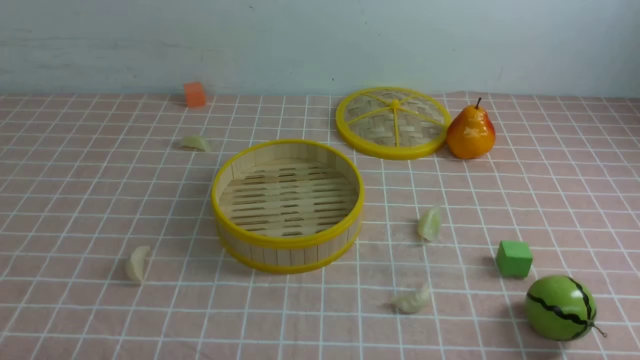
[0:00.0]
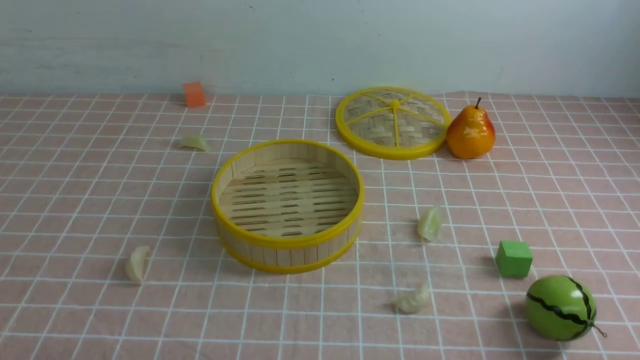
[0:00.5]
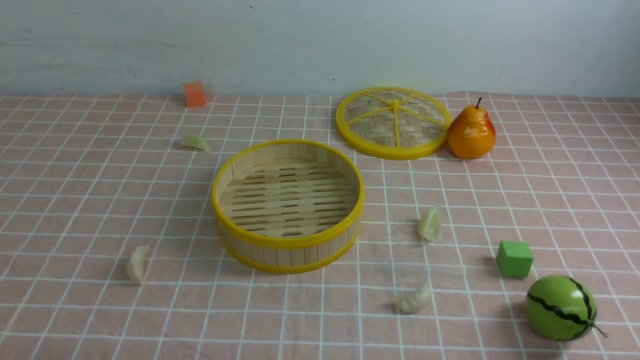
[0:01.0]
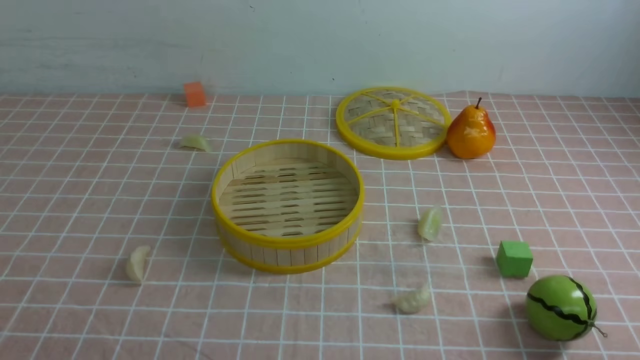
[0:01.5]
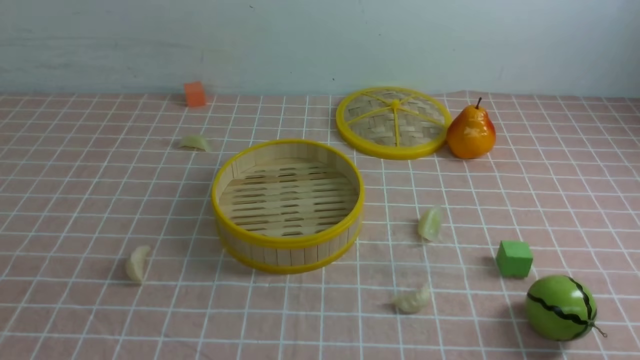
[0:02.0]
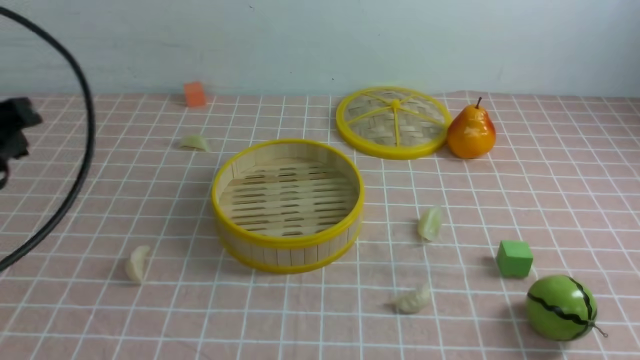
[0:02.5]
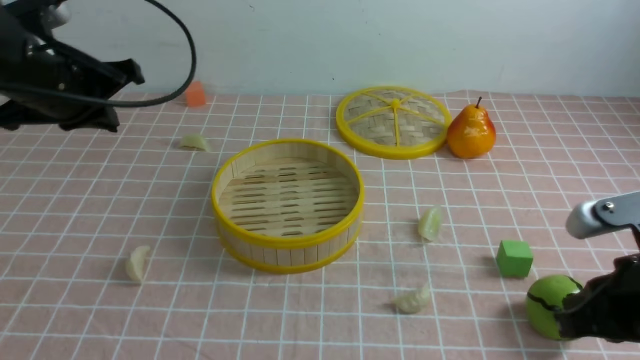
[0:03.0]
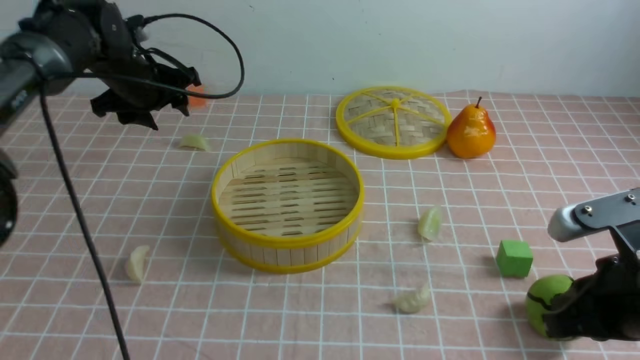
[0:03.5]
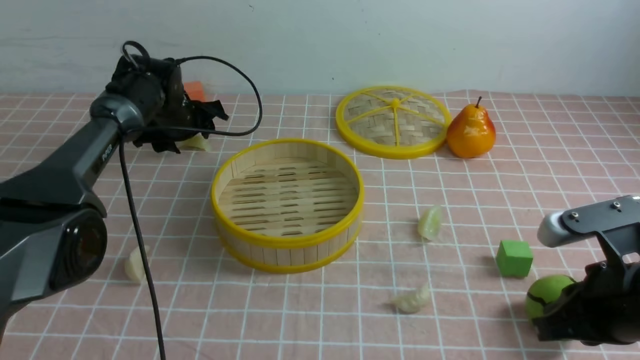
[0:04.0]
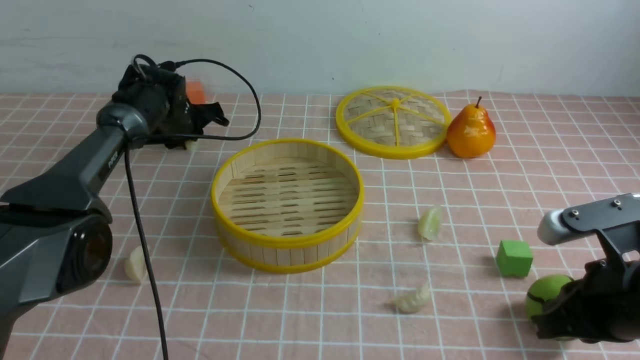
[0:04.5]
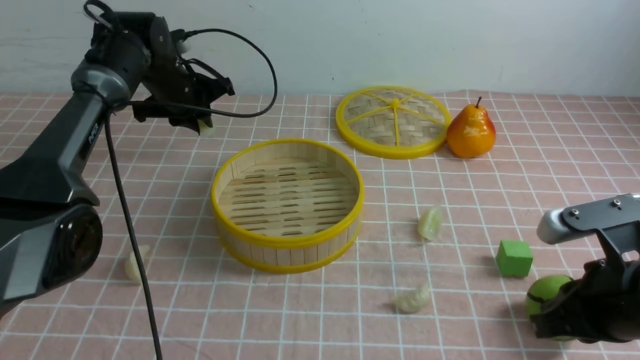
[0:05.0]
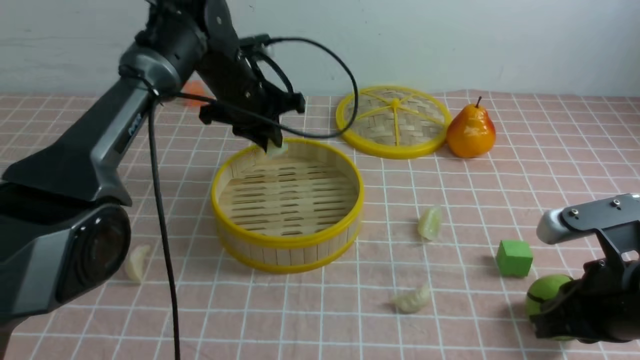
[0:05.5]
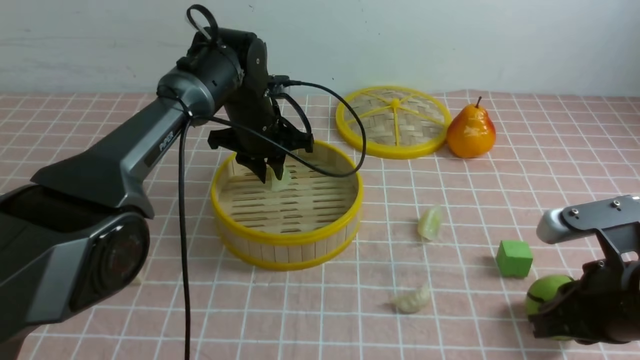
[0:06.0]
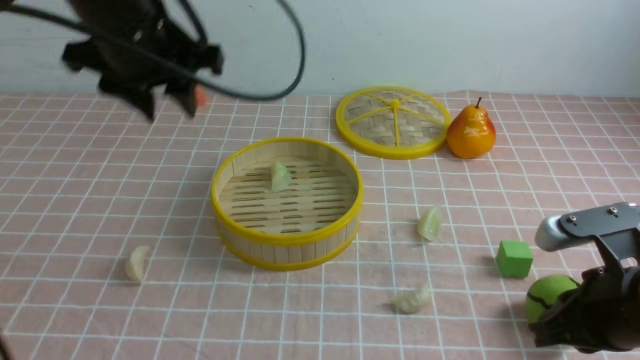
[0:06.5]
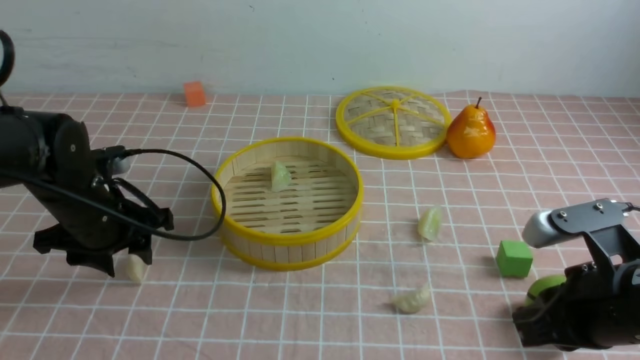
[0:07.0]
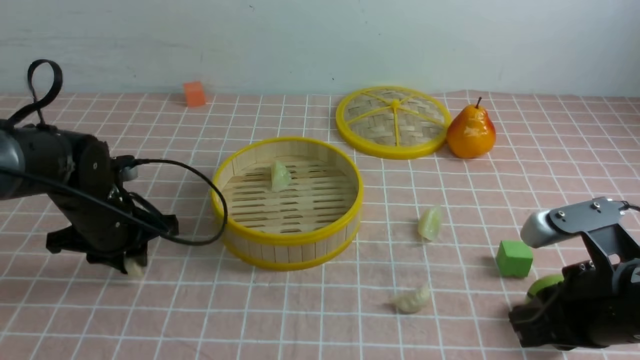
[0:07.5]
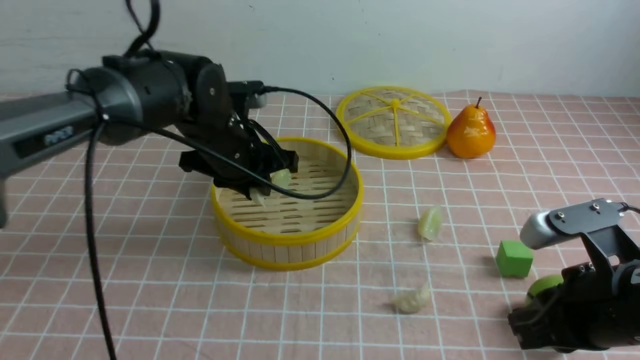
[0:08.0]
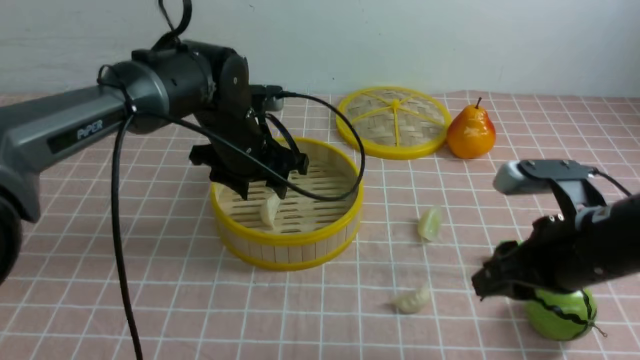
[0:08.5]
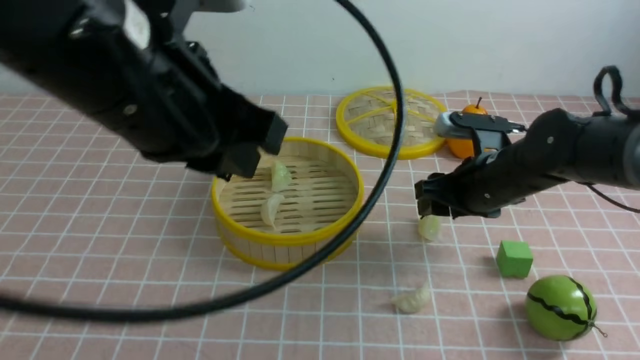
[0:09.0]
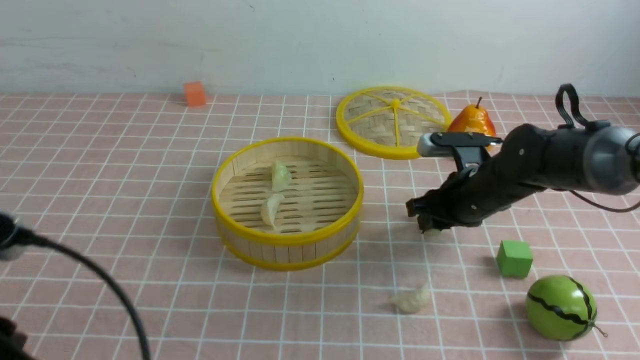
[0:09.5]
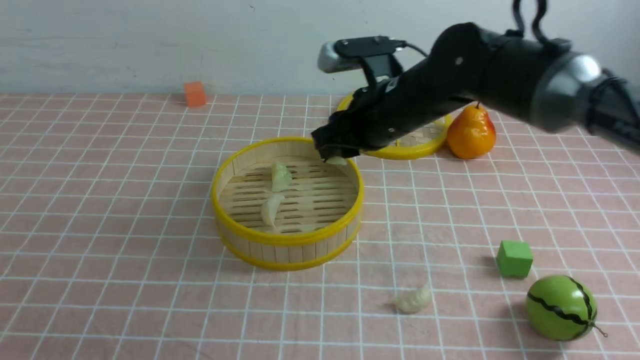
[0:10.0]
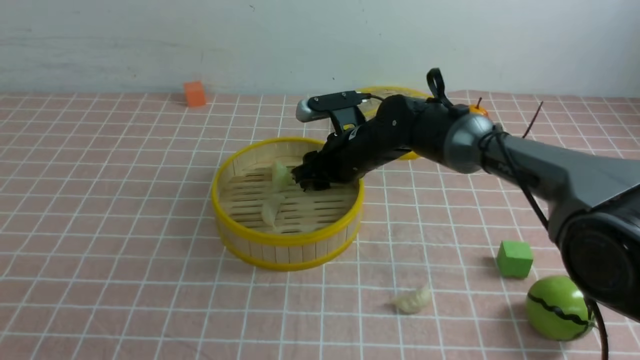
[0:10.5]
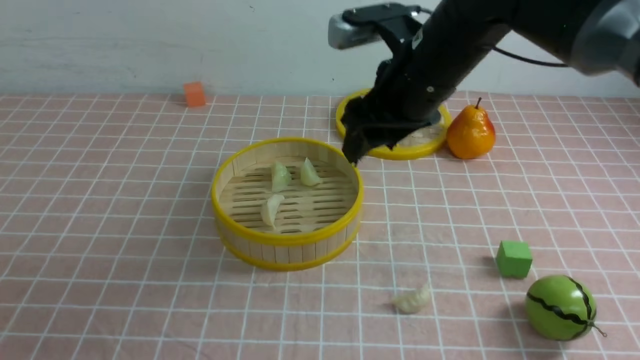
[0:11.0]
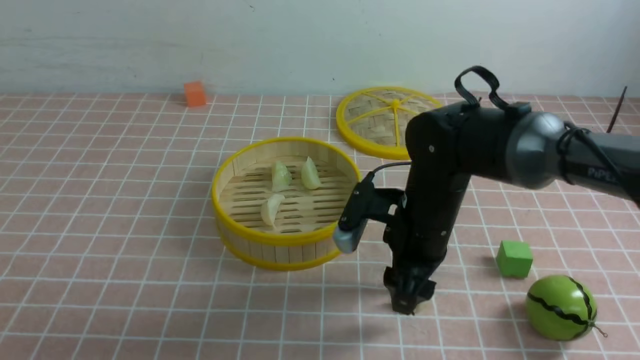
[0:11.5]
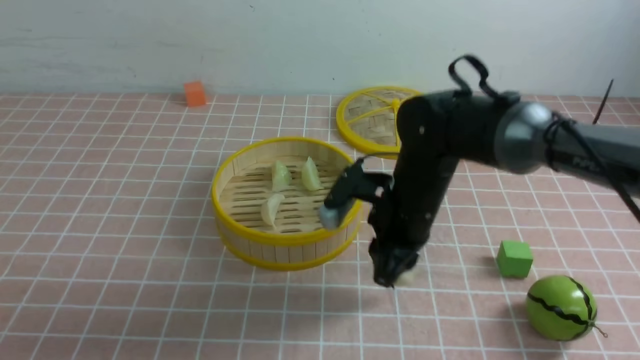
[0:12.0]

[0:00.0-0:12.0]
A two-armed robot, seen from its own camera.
Task of the whole recording: put the dumplings into the steamer on the table with the pink tablecloth.
Step, 0:00.0 to 0:04.5: use the left arm to grab a dumpling.
Step, 0:05.0 to 0:06.0: use the left arm to put the dumpling into the steamer.
Step, 0:06.5 to 0:07.5: use the left arm to grab a dumpling.
Step, 0:08.0 to 0:08.5: use the left arm to put the dumpling into the steamer.
Step, 0:09.0 to 0:09.5: use the right arm to grab a dumpling.
Step, 0:10.0 to 0:10.5: use the right arm to put the dumpling into the steamer.
Step, 0:11.0 to 0:11.5: use the right arm to grab a dumpling.
0:02.0 to 0:04.0: The left gripper shifts roughly 50 cm forward, and opens its fingers, while the right gripper heads forward, covering roughly 15 cm.
0:04.0 to 0:06.0: The left gripper travels to the right, backward and upward by approximately 15 cm, and closes up.
0:06.0 to 0:08.0: The left gripper is displaced backward by about 10 cm, and reaches roughly 15 cm to the left, then returns.
0:08.0 to 0:10.0: The right gripper travels forward and to the left by some 25 cm. The left gripper moves backward and to the left, approximately 35 cm, and opens, then closes once more.
0:10.0 to 0:12.0: The right gripper goes about 5 cm backward, and opens, then closes once more.

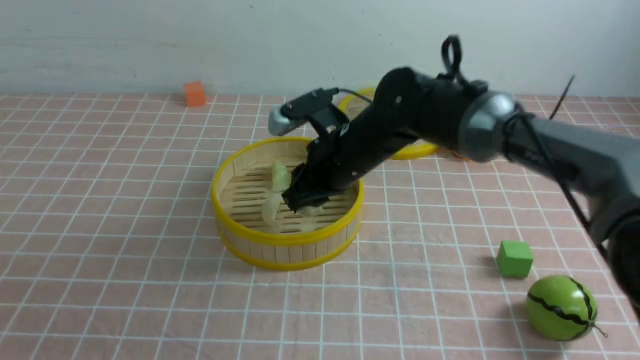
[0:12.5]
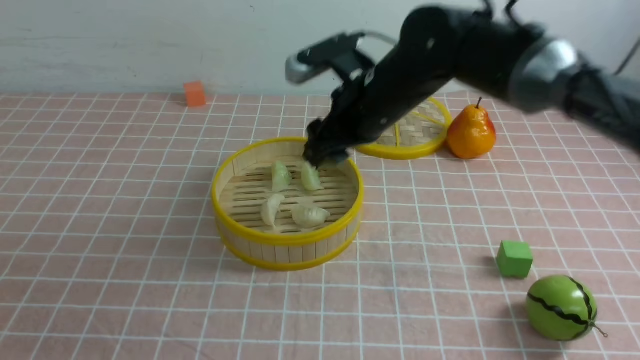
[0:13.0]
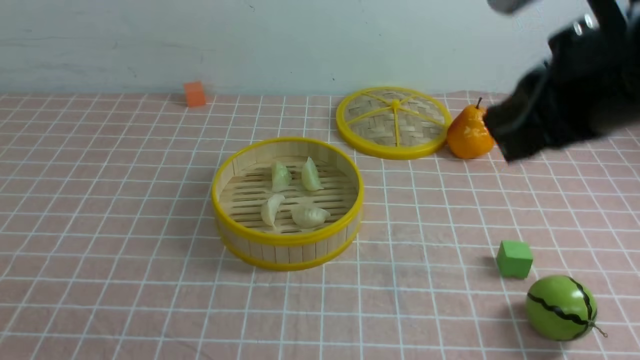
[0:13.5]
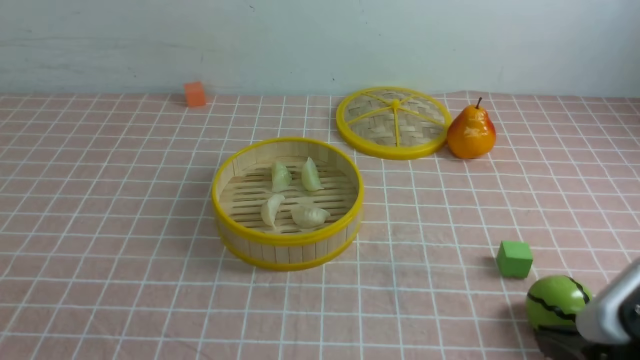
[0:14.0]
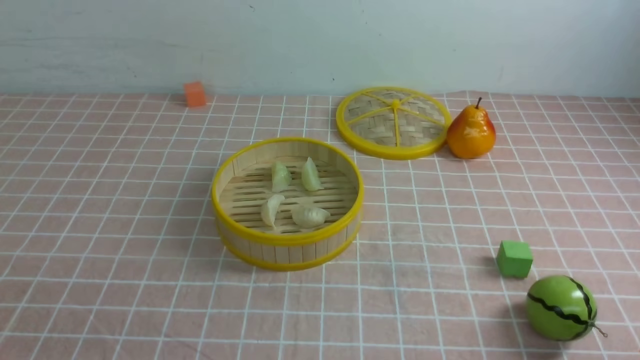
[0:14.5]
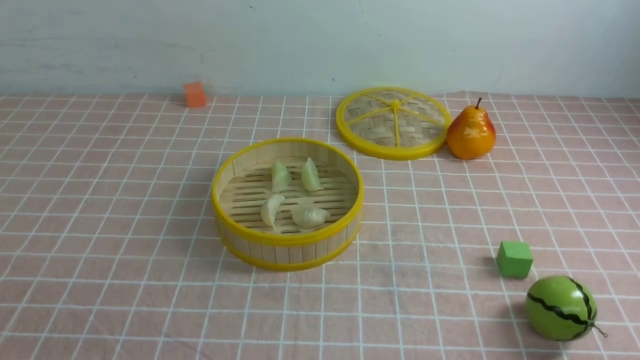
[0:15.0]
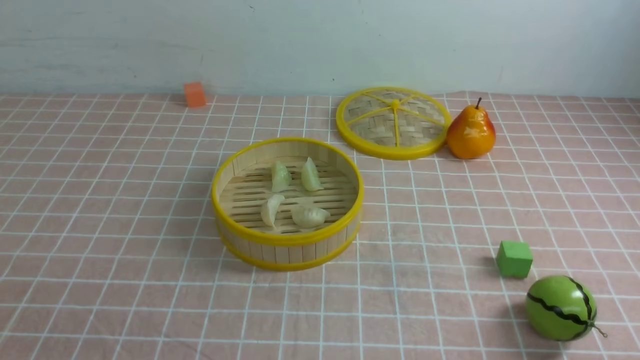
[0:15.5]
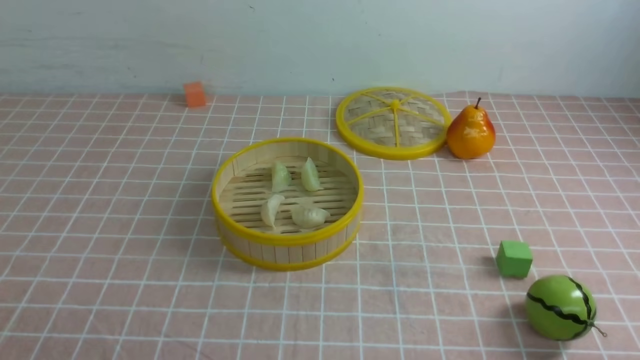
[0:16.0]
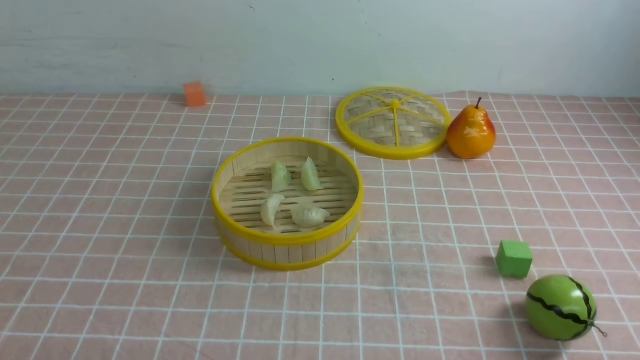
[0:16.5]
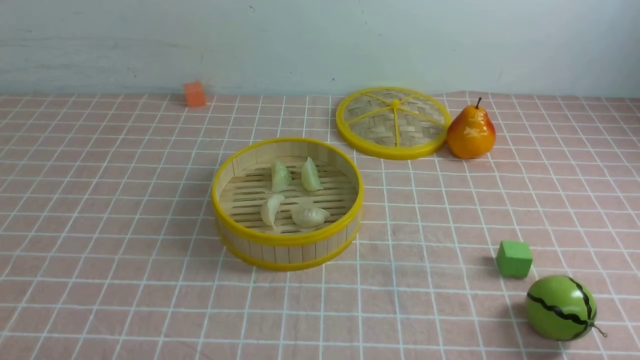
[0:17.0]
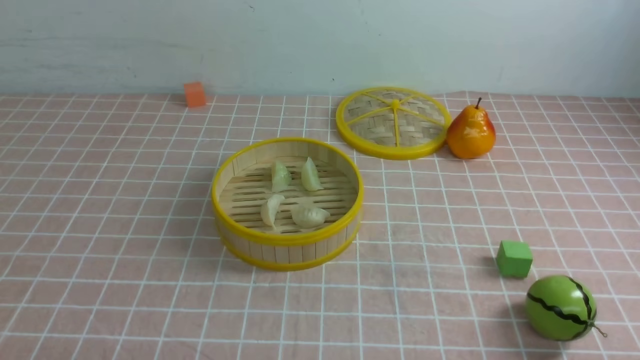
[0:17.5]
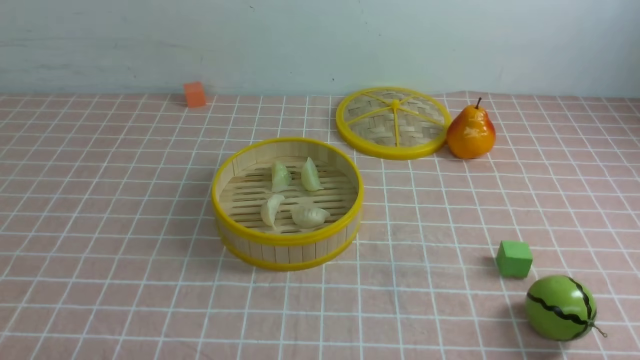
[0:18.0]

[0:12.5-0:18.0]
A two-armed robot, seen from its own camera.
Task of the whole recording: put the dumplings into the steamer on the table with the pink tablecloth.
0:12.5 to 0:14.5: The right gripper is displaced backward and to the right by approximately 40 cm, and closes.
